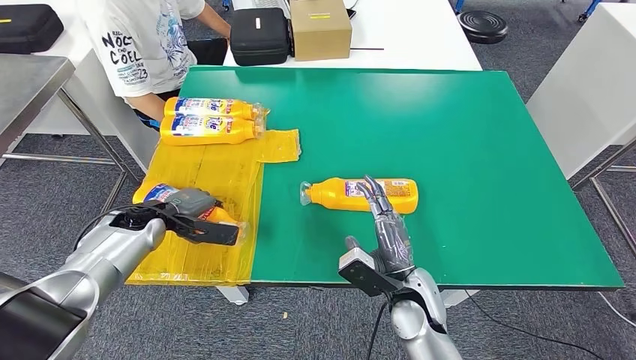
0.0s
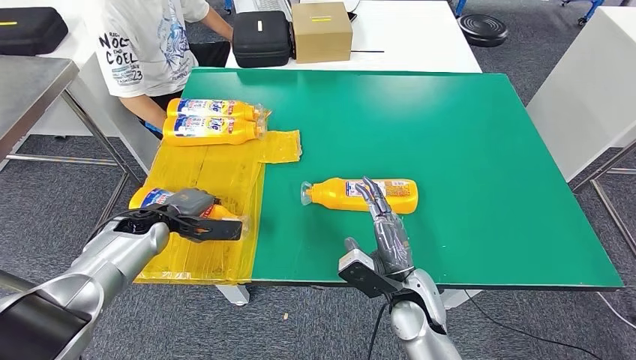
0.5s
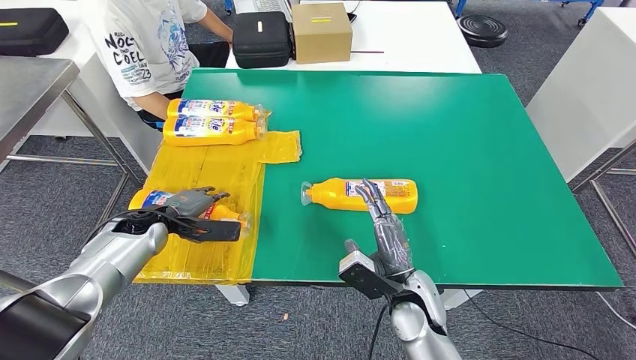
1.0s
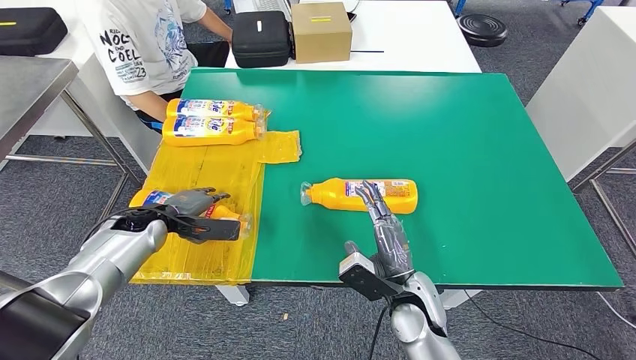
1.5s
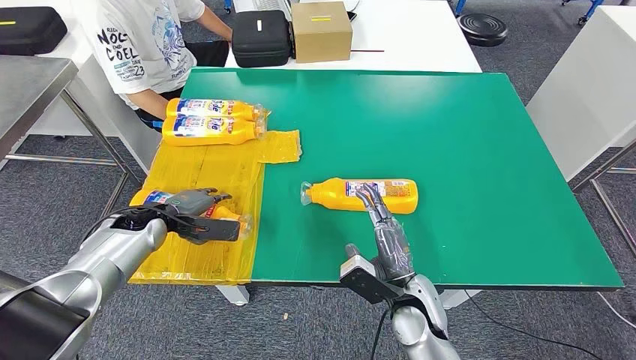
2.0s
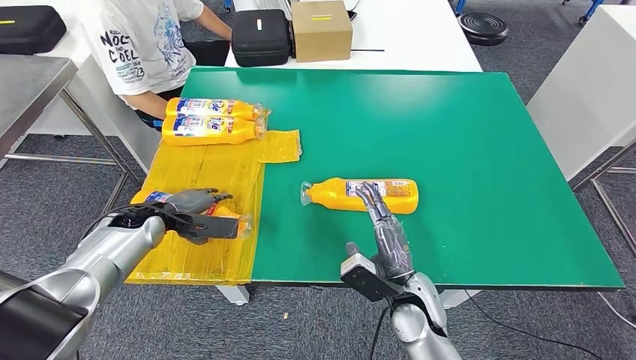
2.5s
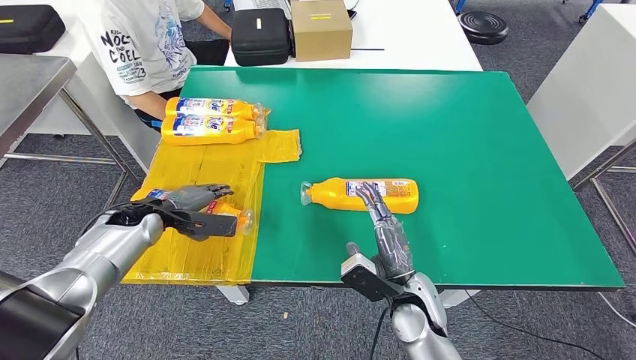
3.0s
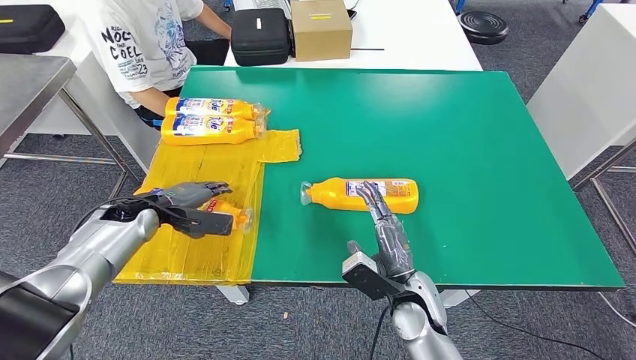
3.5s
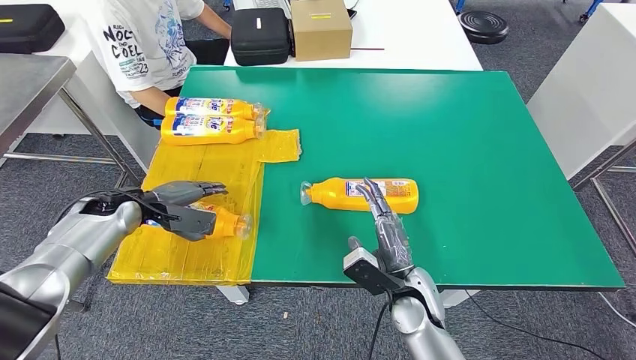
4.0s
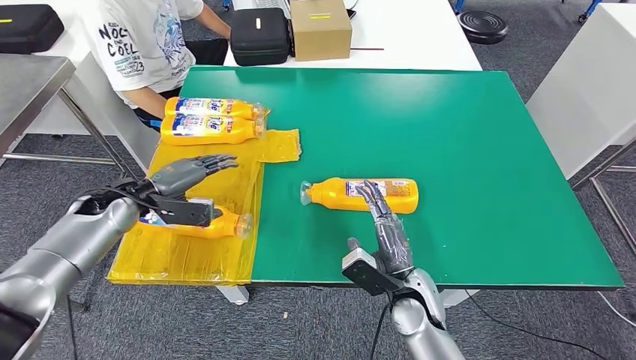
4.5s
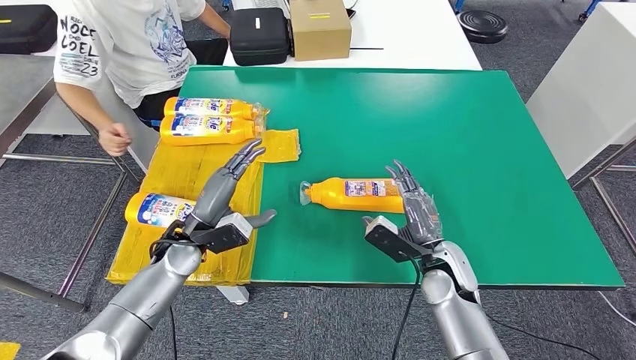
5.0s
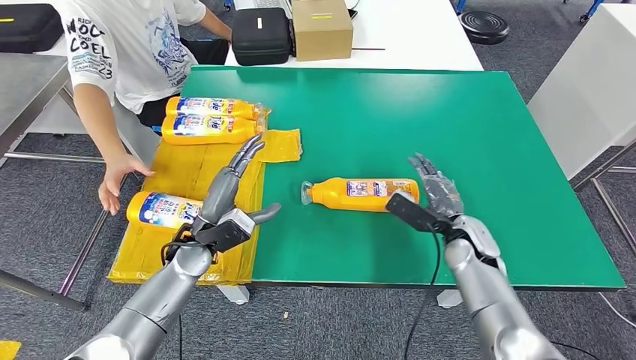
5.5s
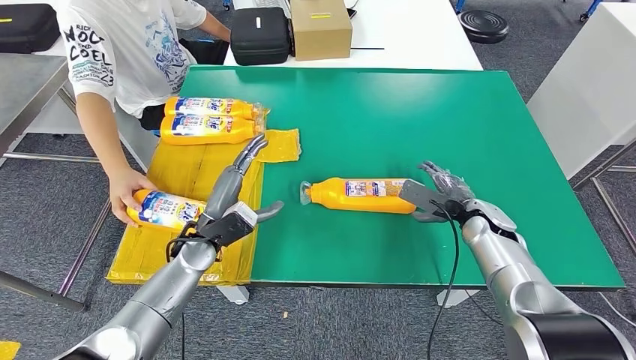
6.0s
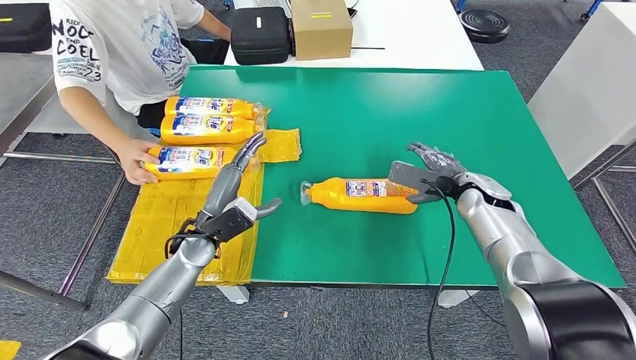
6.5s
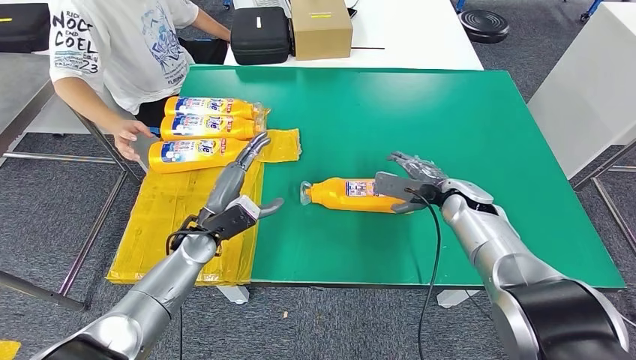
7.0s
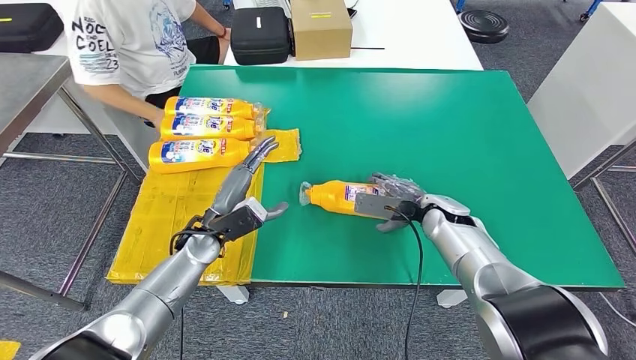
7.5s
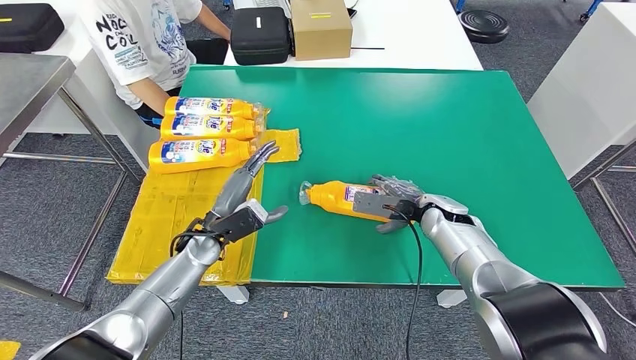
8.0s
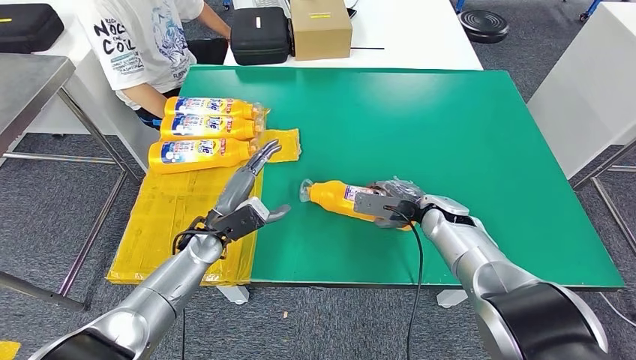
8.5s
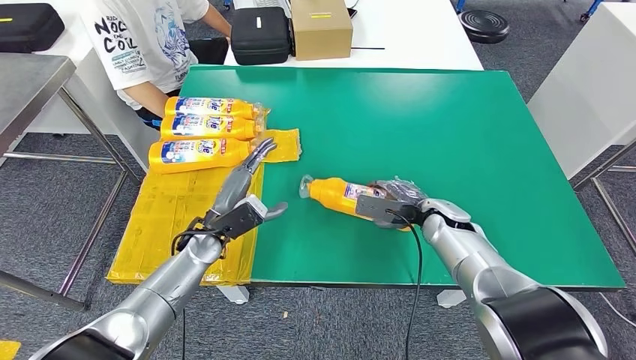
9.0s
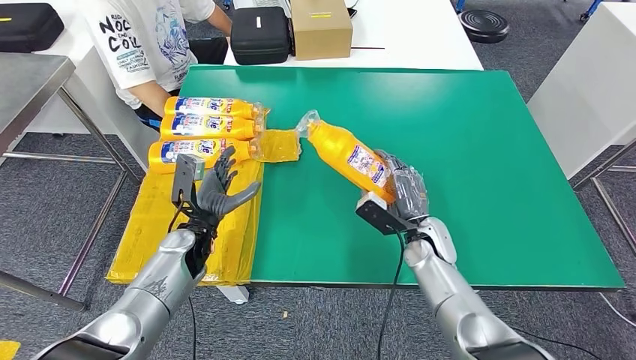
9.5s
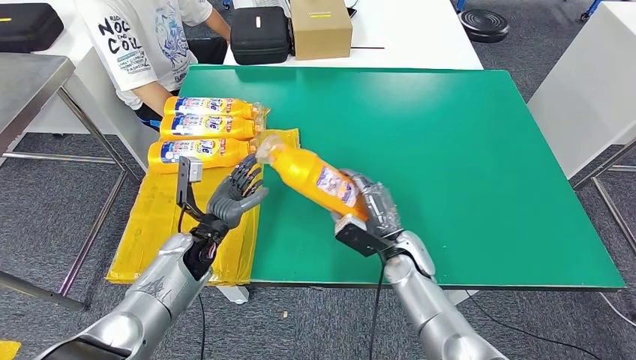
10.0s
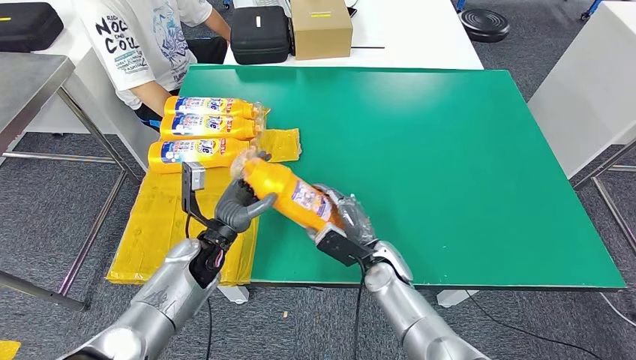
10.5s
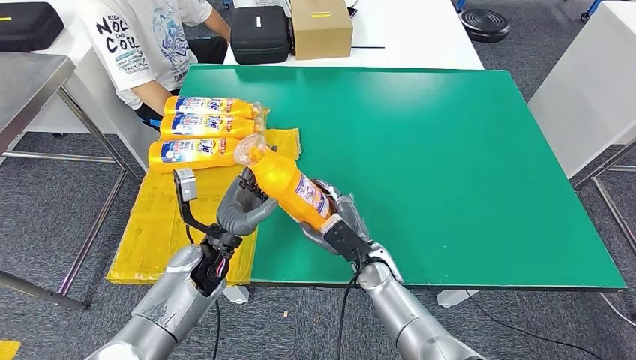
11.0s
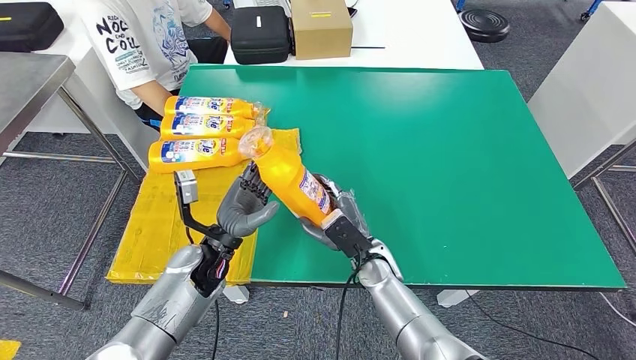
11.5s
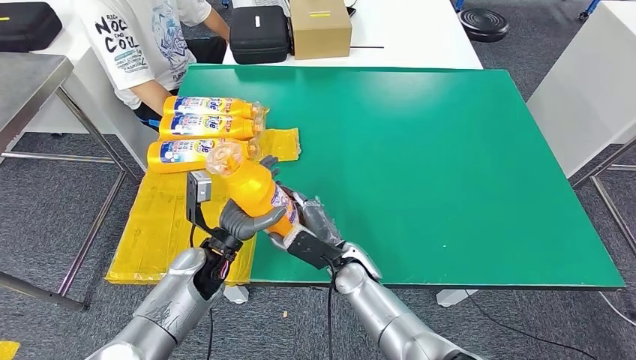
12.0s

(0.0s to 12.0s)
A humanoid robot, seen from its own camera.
Step, 0.0s - 5.0s: Flip the fast-moving consumer goods bottle to the front side.
Step, 9.0s - 11.0s: Pick up the fast-moving consumer goods bottle from the table.
0.0s - 2.0s: There are only small adjustments of the hands.
2.0s - 4.0s: The left hand changes place by some 5 cm.
6.0s - 8.0s: The right hand heads to the left, covering approximately 10 cm.
8.0s - 10.0s: The right hand travels to the left and backward by about 10 cm.
10.0s - 12.0s: The left hand moves roughly 5 cm. The right hand shifts approximately 10 cm to the left.

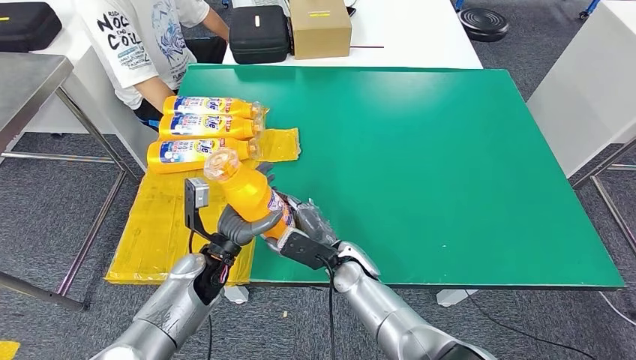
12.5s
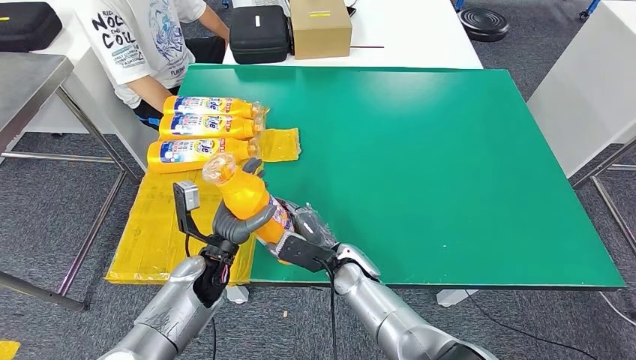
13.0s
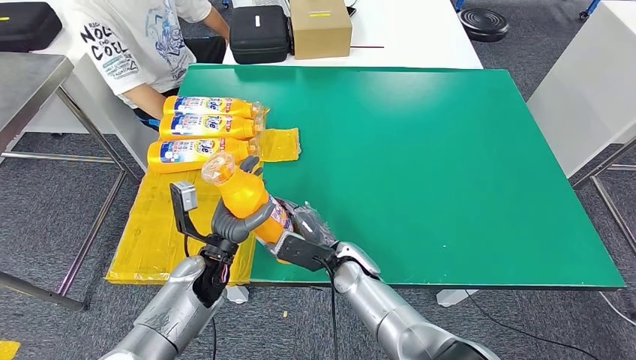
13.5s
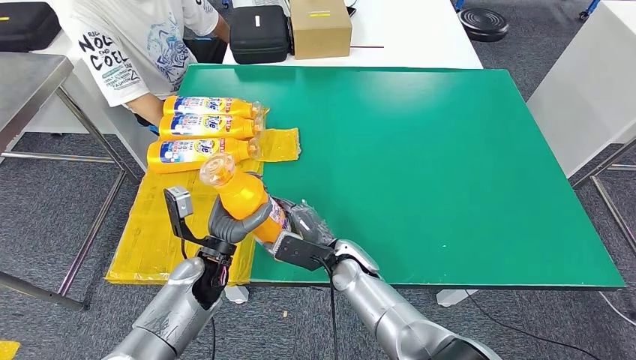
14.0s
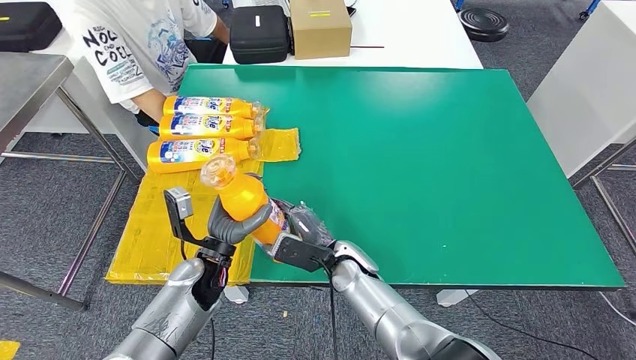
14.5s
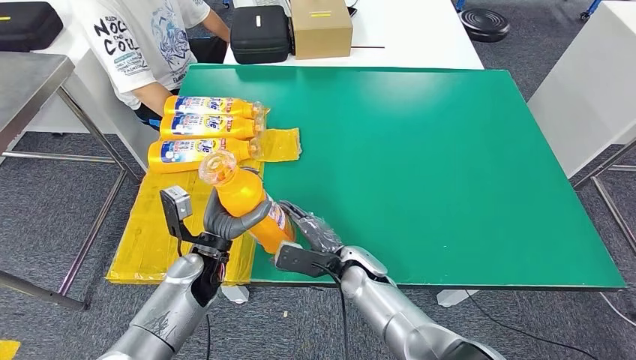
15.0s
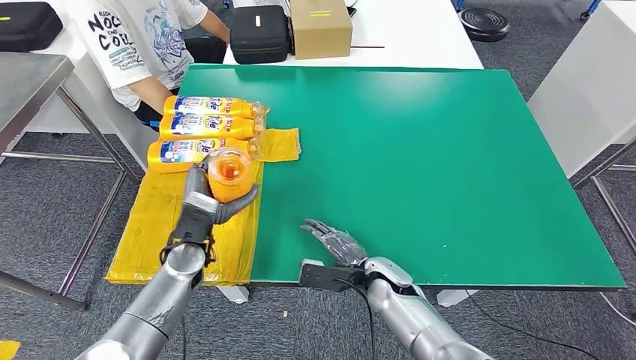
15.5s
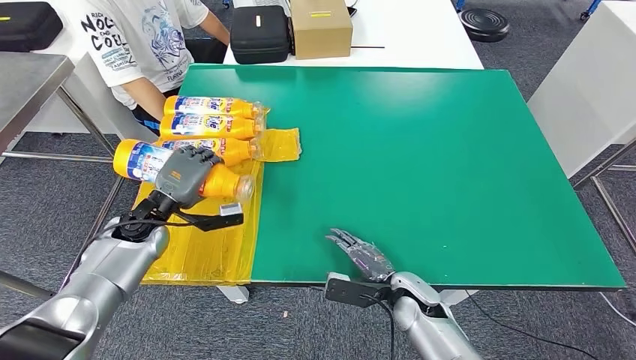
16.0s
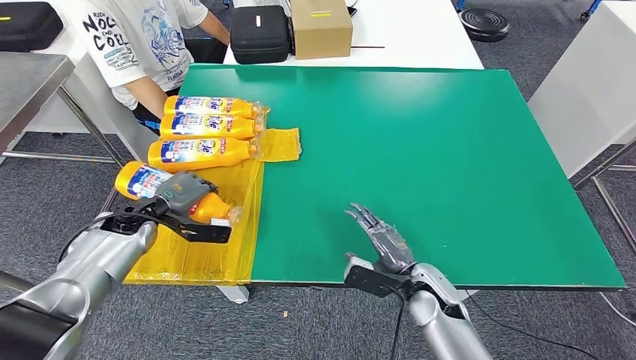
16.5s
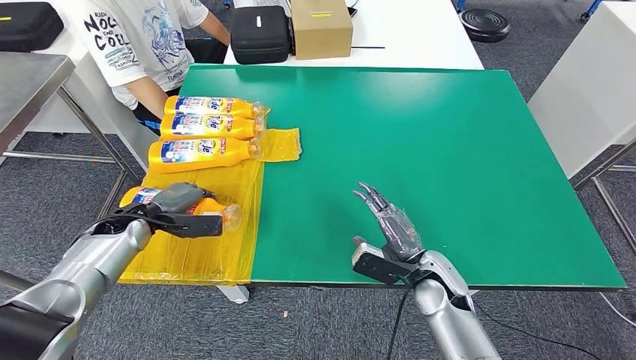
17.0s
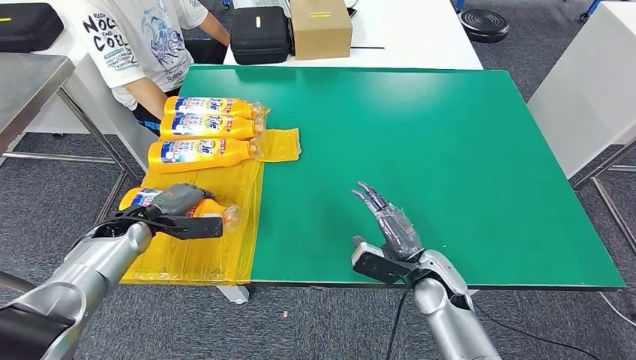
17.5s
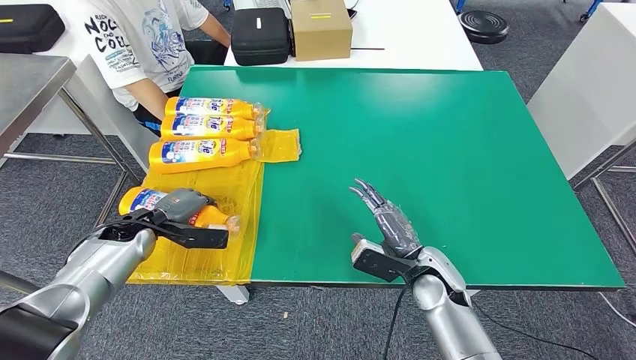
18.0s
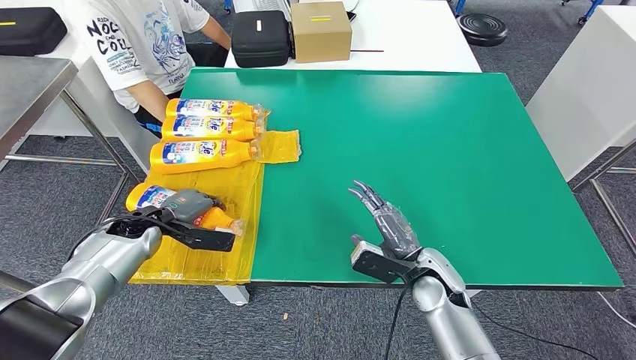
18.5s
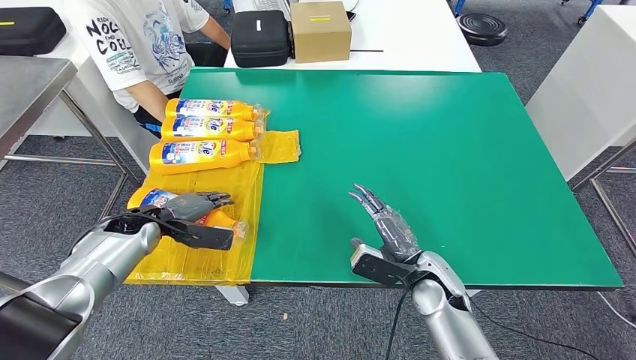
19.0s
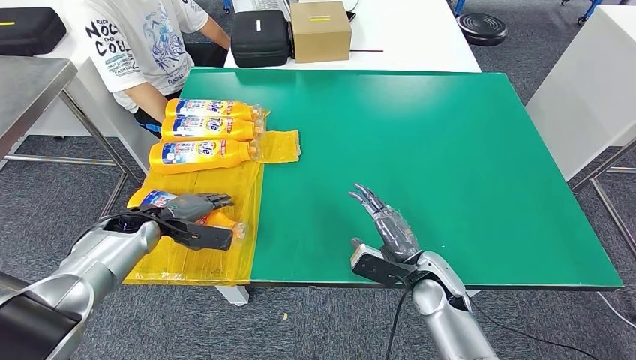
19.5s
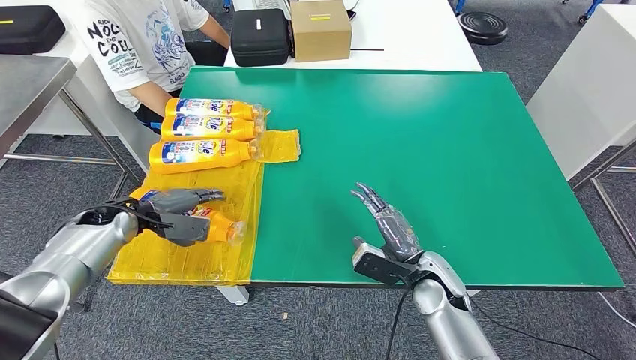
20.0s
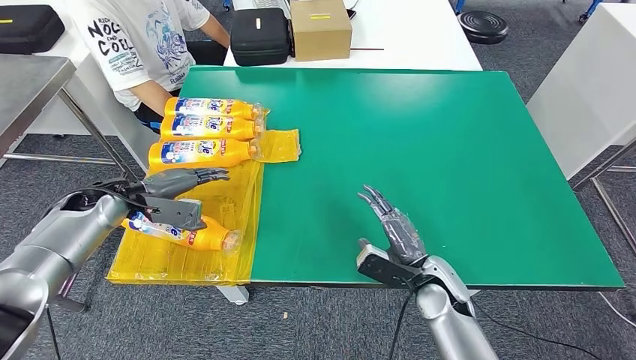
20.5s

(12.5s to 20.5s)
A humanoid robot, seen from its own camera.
Step, 12.5s - 20.5s: Flip the fast-moving consumer goods bottle to the front side.
12.5s - 14.5s: The hands stay close to where they were, moving slightly.
18.5s - 20.5s: The left hand travels upward by some 5 cm.
